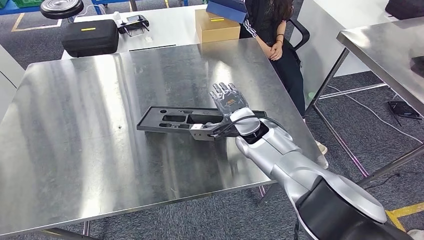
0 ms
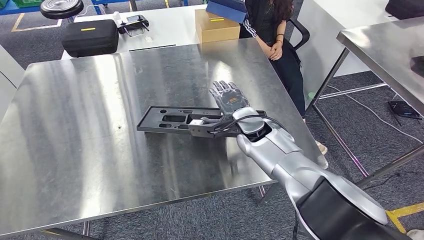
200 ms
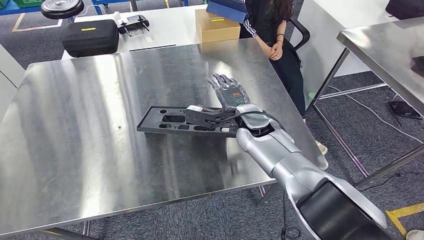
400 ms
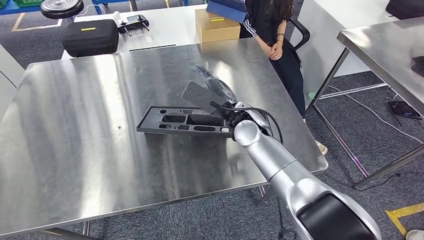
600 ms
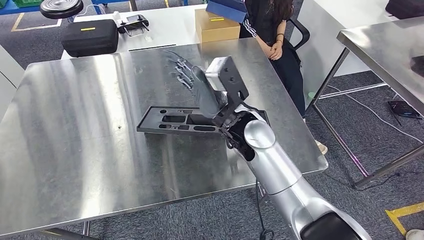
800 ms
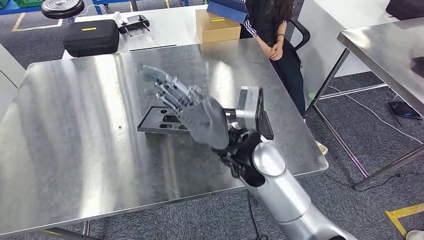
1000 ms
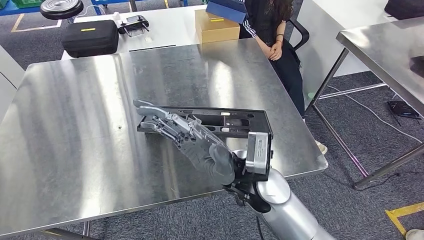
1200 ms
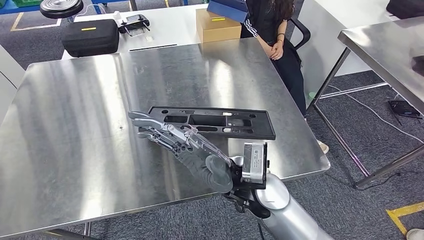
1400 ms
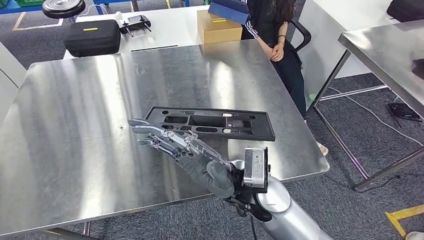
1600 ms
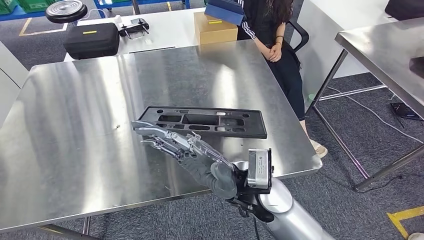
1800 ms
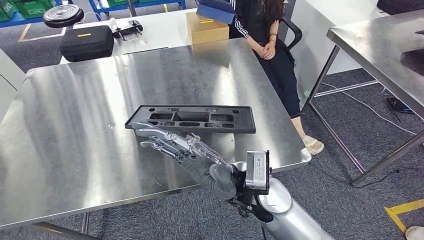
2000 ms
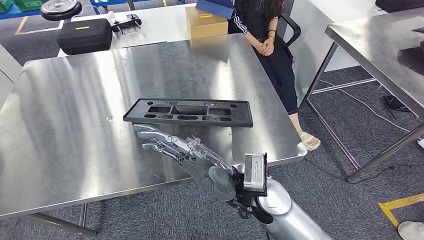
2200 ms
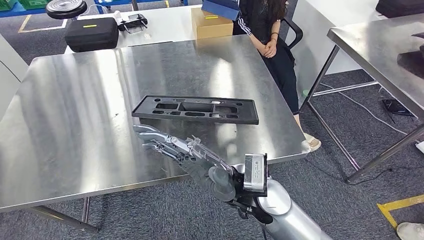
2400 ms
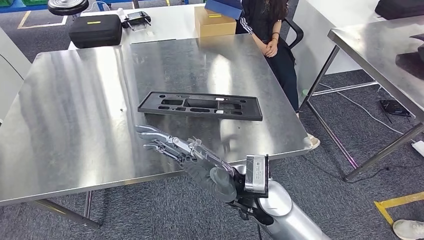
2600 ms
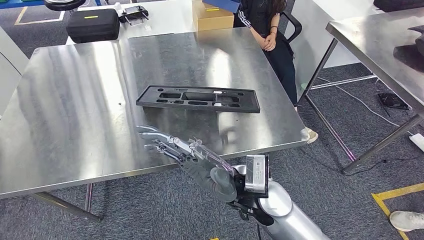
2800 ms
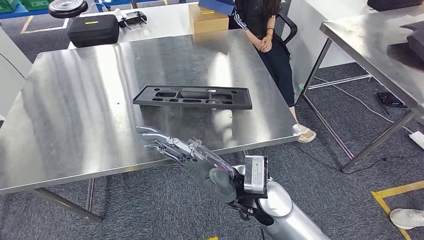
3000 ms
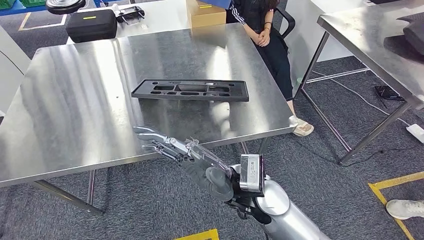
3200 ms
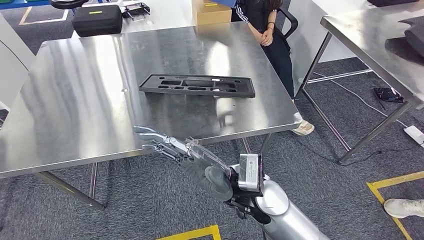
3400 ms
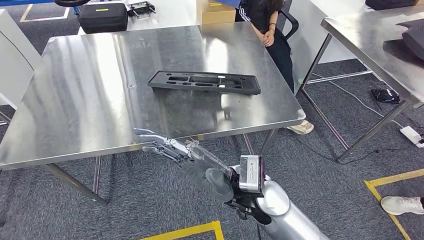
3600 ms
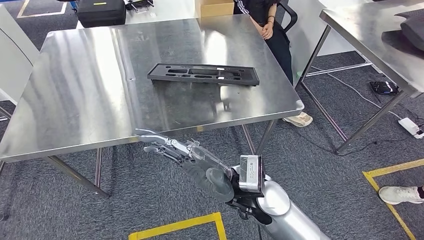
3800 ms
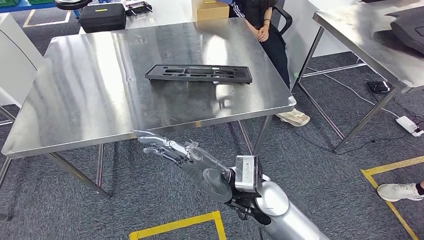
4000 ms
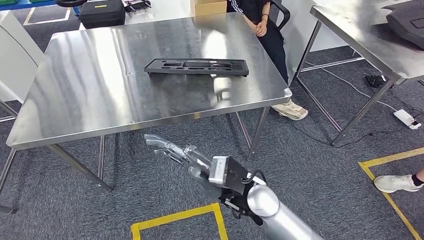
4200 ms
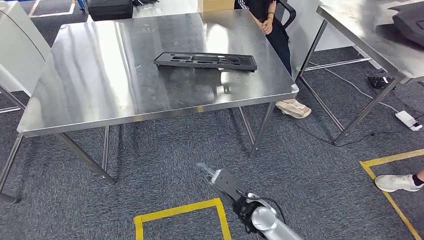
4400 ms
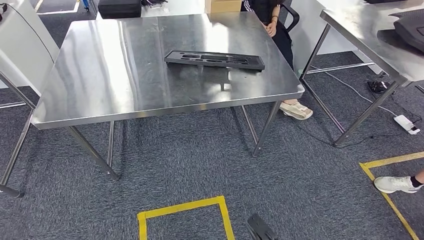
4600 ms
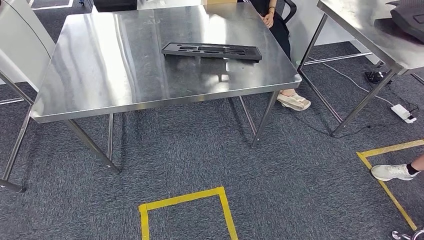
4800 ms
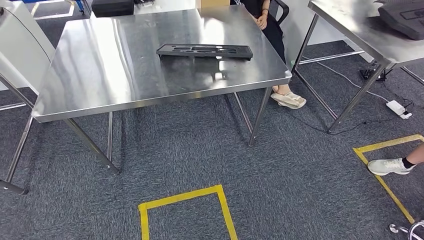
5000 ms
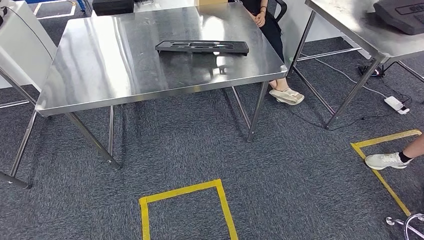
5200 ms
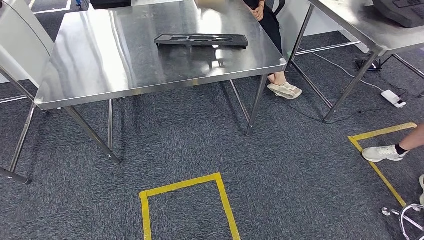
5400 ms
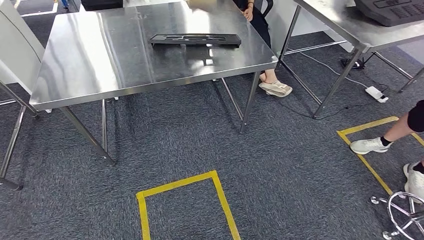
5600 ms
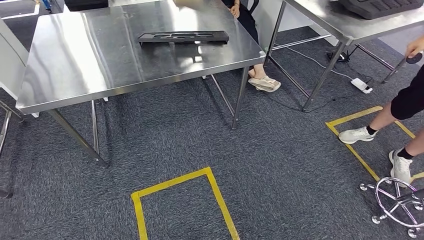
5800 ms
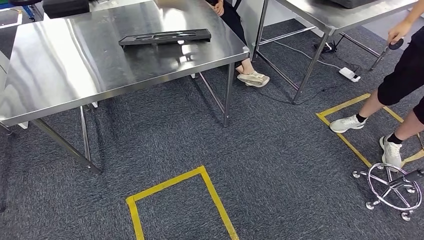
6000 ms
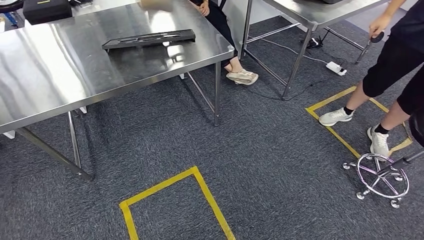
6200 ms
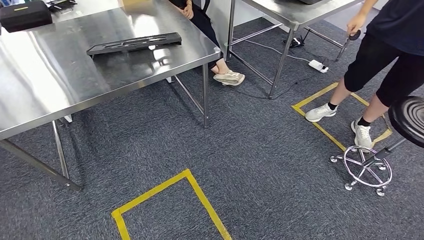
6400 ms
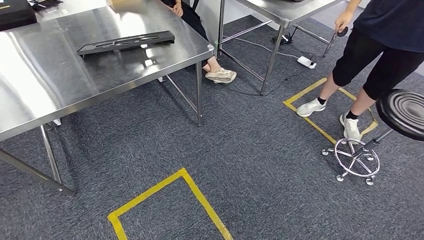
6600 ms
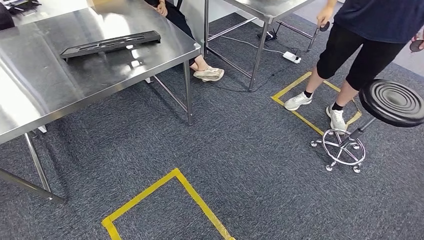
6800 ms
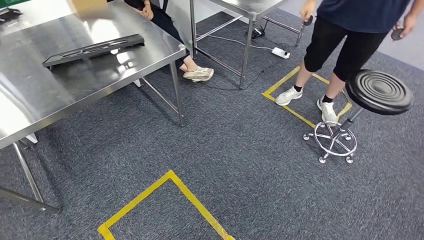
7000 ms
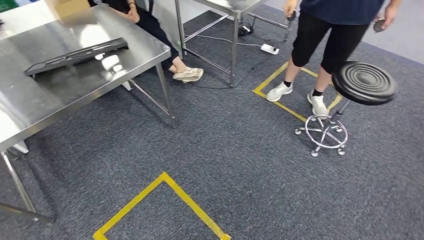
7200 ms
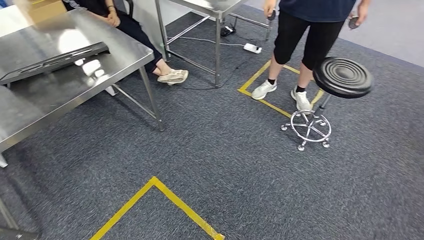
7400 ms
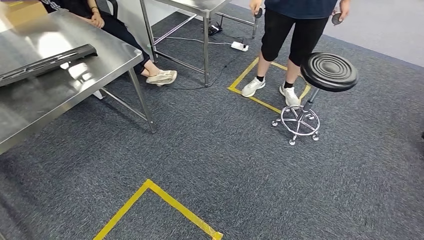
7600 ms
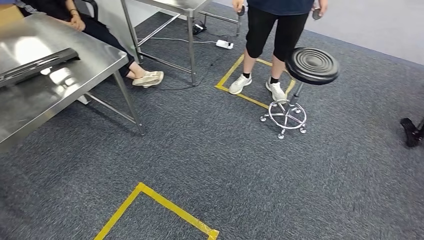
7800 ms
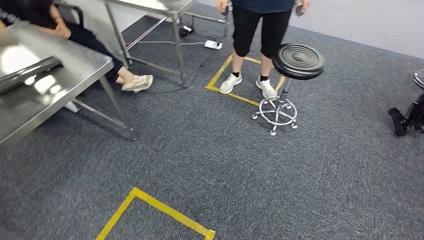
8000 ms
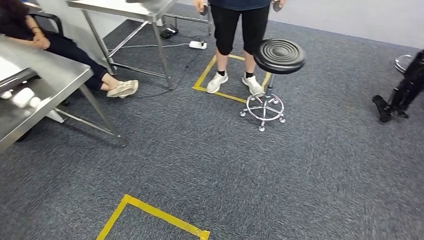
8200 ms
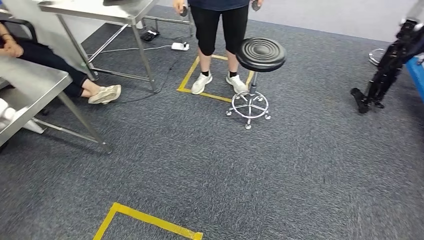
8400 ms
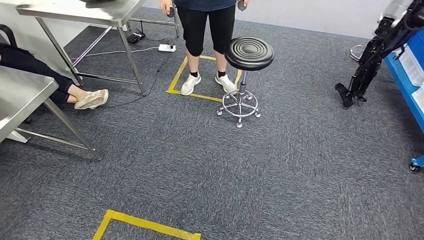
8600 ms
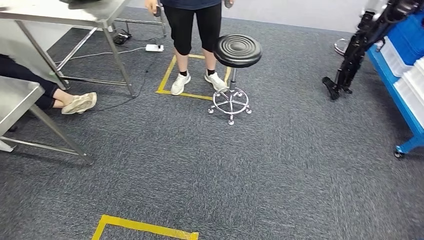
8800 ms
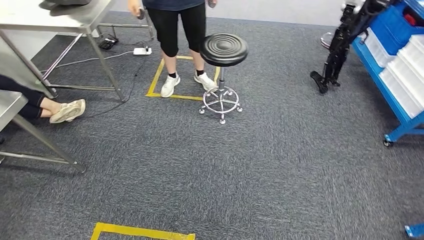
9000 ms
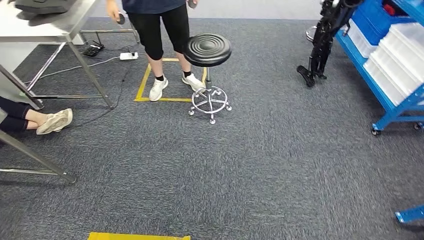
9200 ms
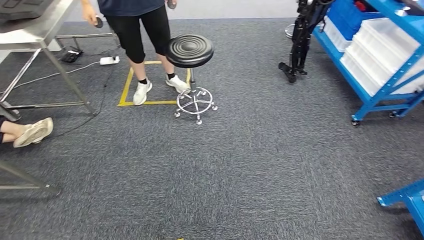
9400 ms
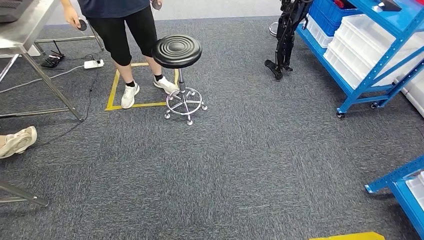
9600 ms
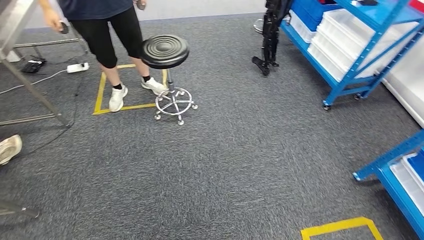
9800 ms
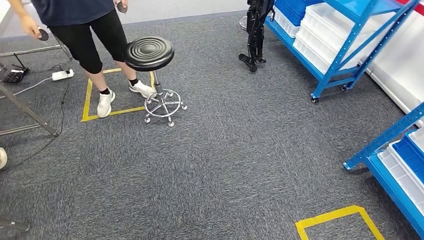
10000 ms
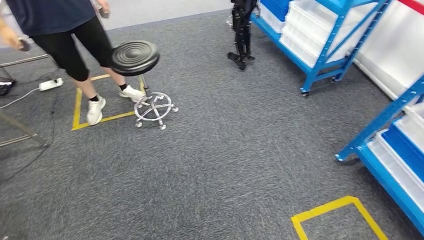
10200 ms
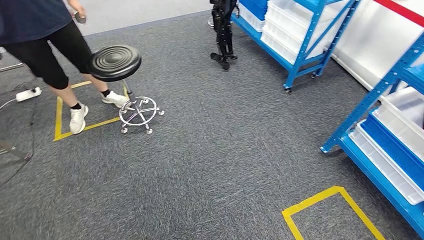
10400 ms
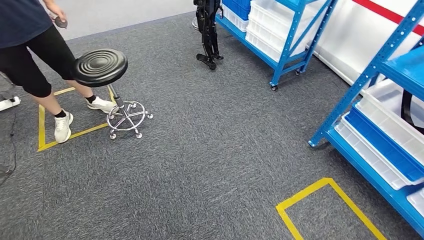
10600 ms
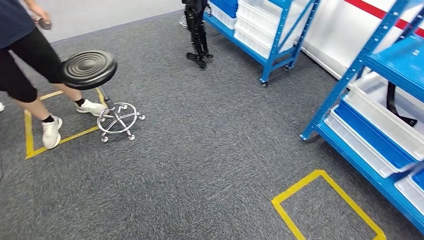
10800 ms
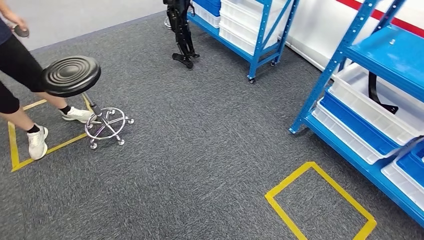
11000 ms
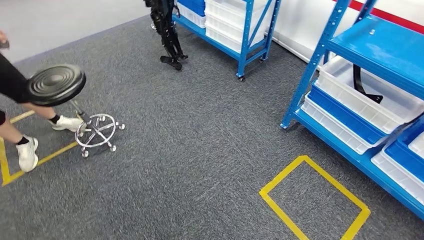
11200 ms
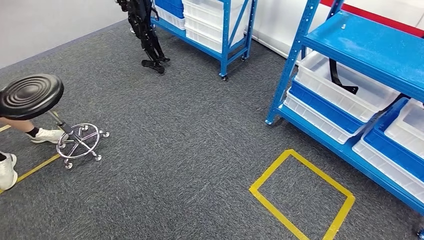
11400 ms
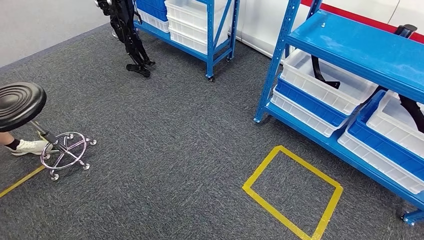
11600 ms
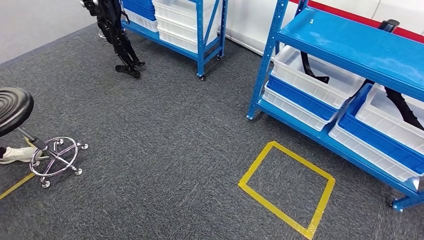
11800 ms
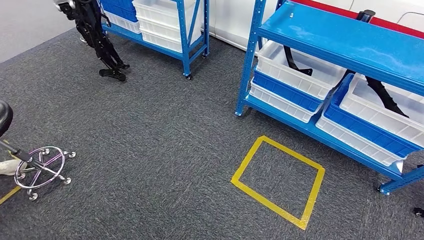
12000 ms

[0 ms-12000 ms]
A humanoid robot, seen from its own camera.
Step, 0 ms to 4400 ms: Insert the large material into the corresponding slot on the workbench.

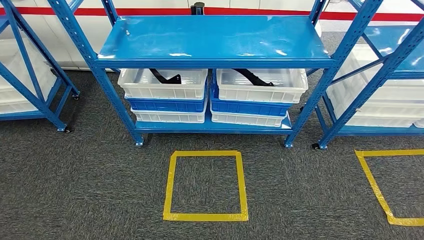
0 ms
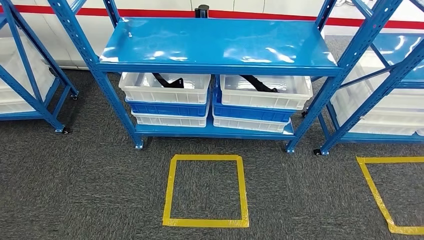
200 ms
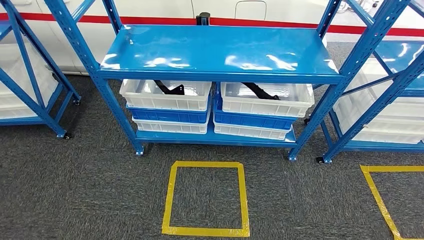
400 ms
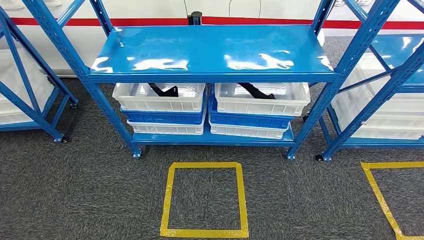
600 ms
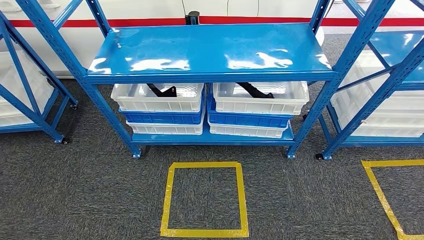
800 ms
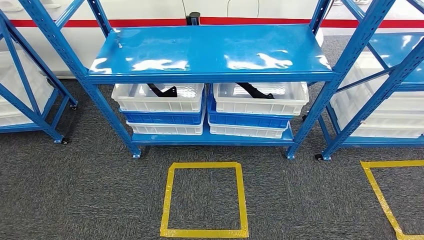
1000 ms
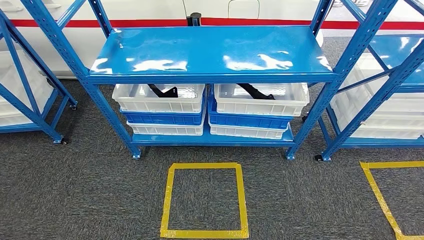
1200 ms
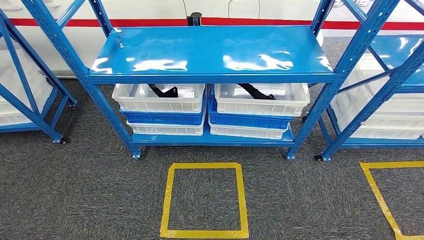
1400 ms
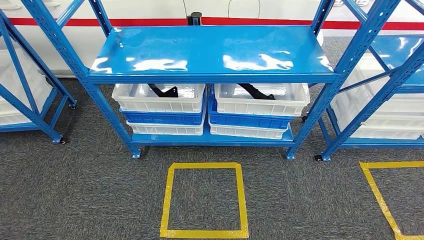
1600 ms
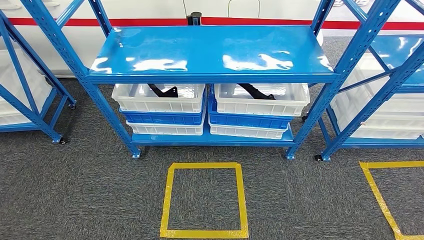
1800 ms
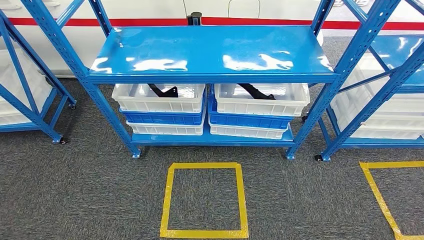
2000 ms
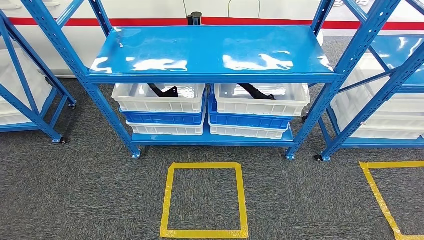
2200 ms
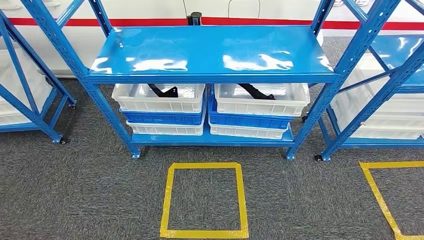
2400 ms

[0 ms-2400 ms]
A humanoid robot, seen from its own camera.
Step, 0 ms to 2200 ms: Return to the initial position at the shelf.
1200 ms to 2400 ms: The hands stay close to where they were, moving slightly.
